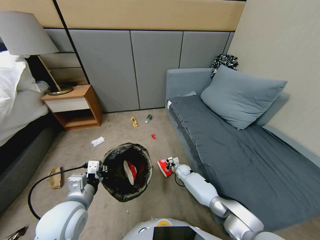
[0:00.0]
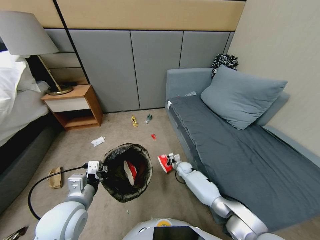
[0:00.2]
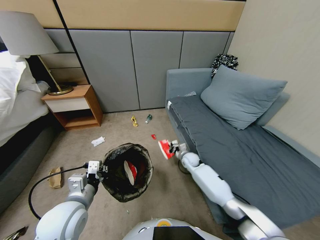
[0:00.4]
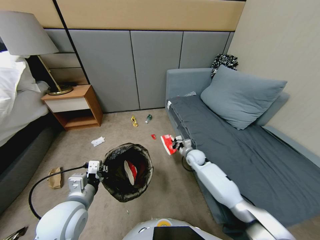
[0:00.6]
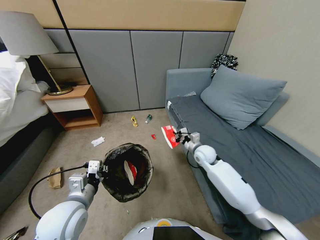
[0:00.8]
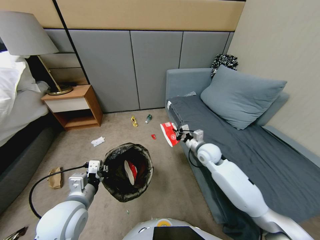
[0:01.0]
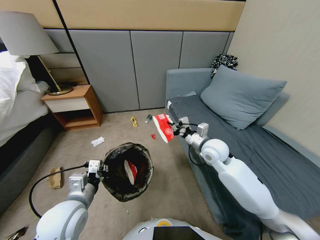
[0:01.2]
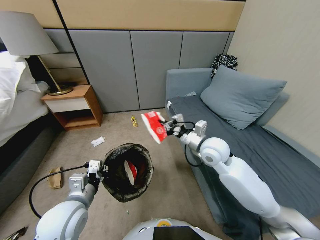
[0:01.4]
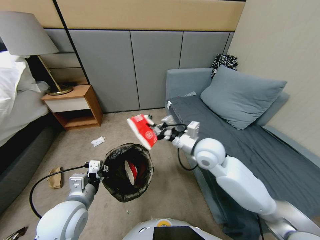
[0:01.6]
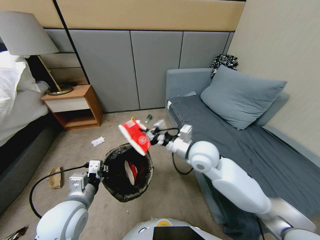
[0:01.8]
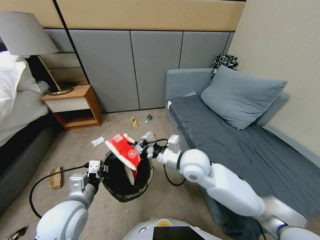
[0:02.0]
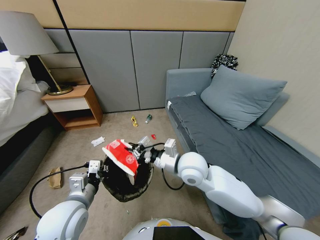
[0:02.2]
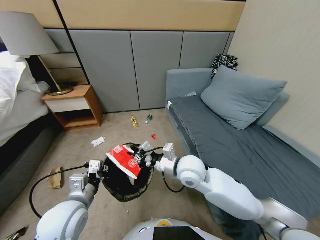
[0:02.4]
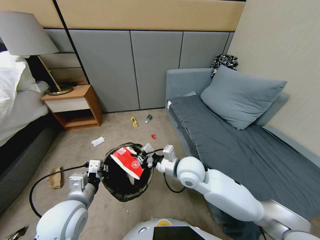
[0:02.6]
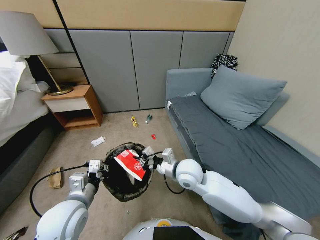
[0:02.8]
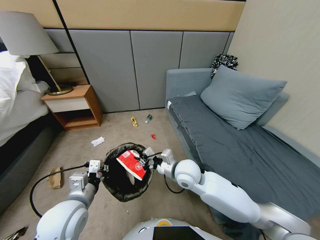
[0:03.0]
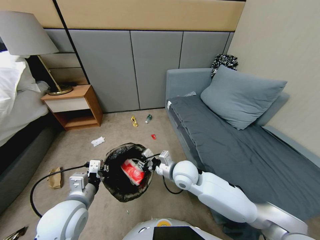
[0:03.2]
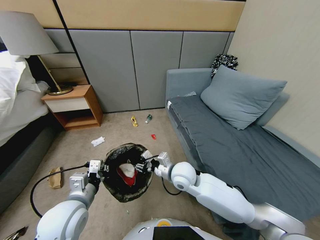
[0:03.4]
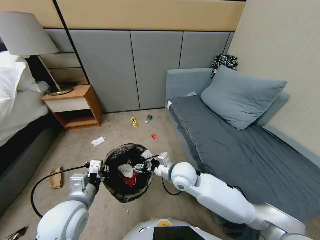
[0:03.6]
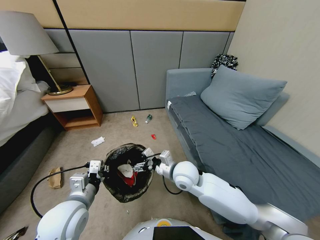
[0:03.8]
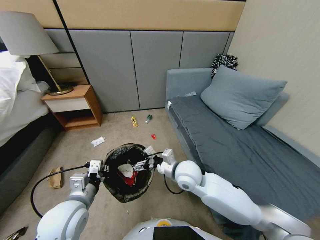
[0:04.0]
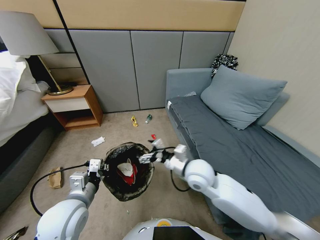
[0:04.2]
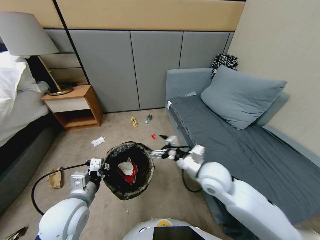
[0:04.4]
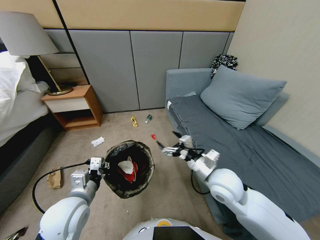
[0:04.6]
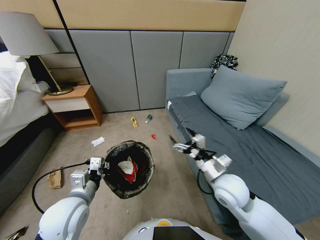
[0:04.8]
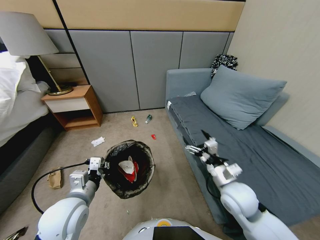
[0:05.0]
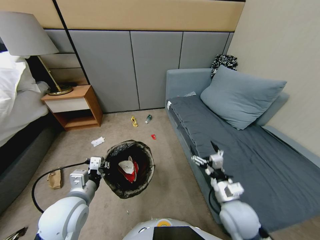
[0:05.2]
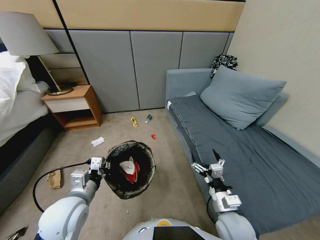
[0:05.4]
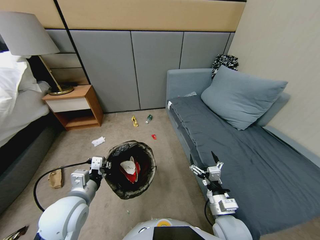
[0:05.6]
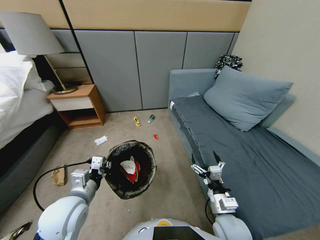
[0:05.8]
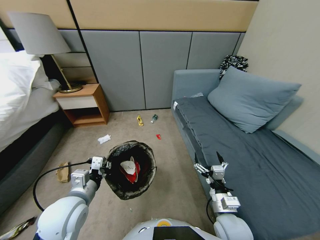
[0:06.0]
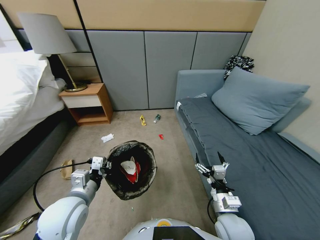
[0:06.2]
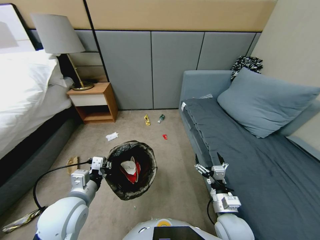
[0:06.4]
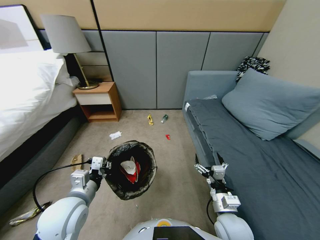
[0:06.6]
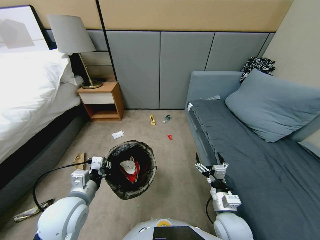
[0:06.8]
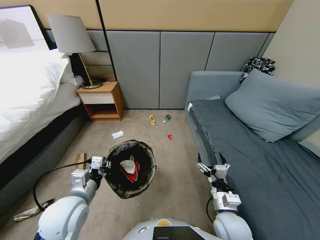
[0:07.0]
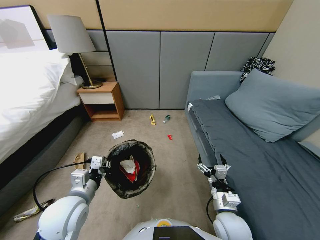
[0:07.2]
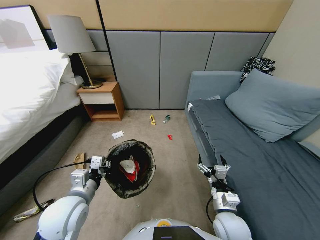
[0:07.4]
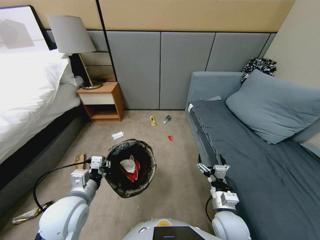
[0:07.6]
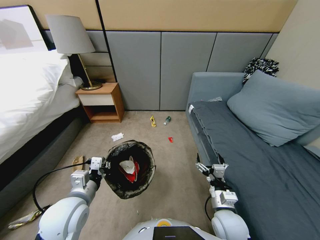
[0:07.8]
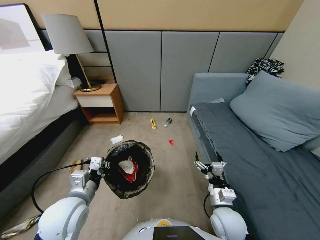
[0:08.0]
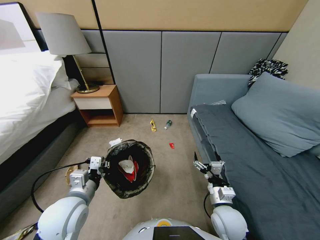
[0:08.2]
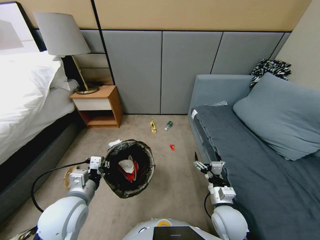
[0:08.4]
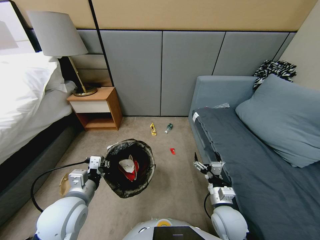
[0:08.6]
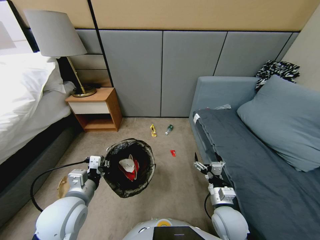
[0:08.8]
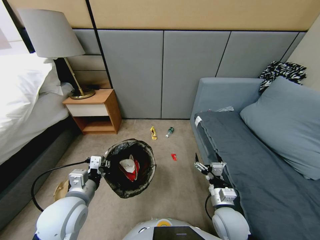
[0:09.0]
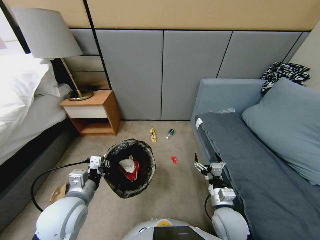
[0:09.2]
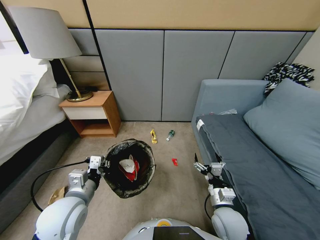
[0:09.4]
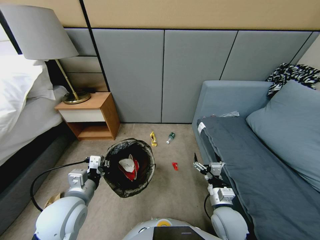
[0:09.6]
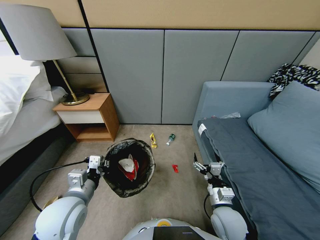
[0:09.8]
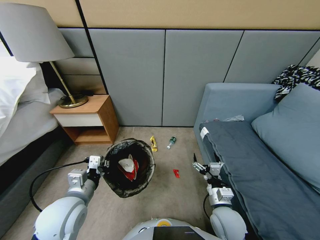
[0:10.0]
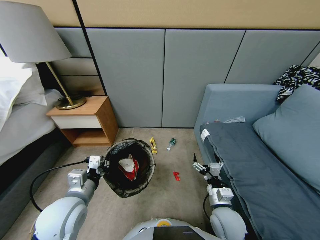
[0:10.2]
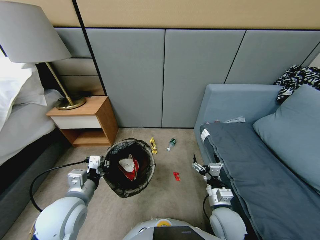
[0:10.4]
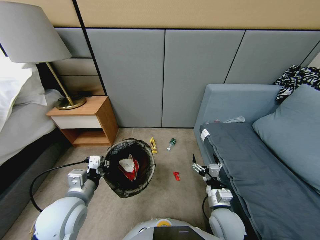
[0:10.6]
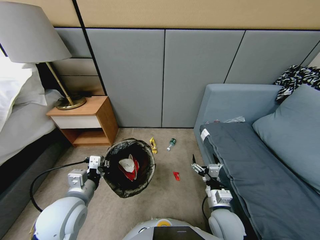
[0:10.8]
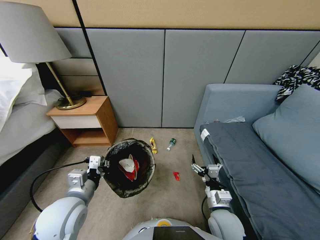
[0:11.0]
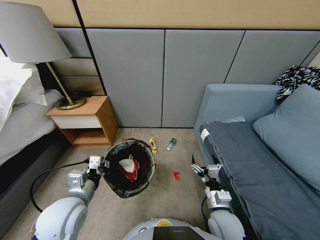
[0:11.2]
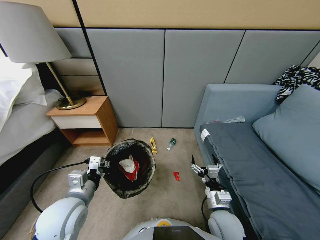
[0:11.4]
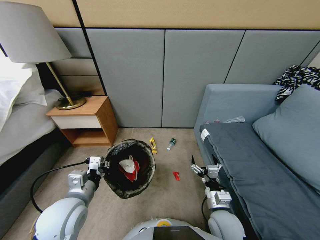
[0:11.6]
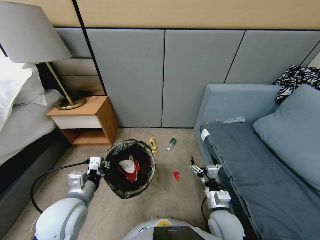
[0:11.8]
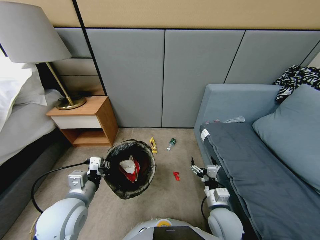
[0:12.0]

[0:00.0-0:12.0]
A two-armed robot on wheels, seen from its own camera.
Task of the whole recording: Pick up the trash bin, then pick up the garbage from the floor and place it into the trash bin.
0:00.0 to 0:01.6: The right gripper moves upward, approximately 35 cm.
0:01.6 to 0:03.0: The right gripper goes about 10 cm downward.
0:03.0 to 0:04.4: The right gripper goes some 10 cm to the right and backward, and opens.
0:04.4 to 0:06.0: The right gripper shifts approximately 15 cm downward and backward.
0:10.4 to 0:12.0: The grippers move only a little.

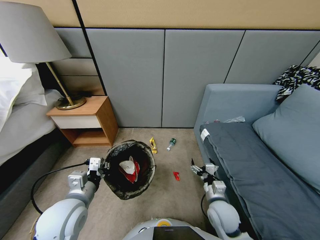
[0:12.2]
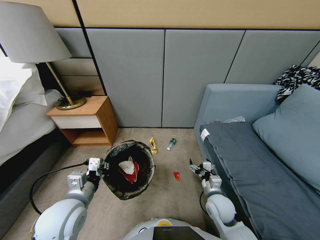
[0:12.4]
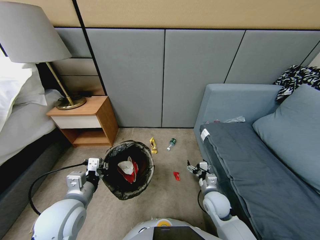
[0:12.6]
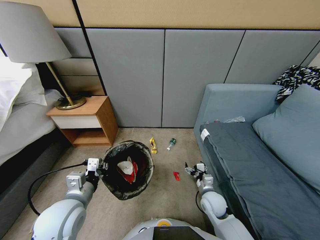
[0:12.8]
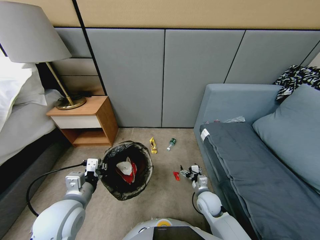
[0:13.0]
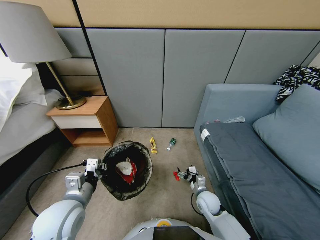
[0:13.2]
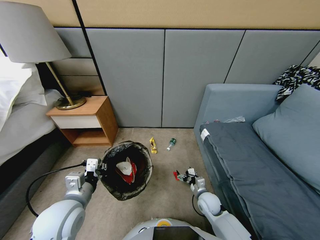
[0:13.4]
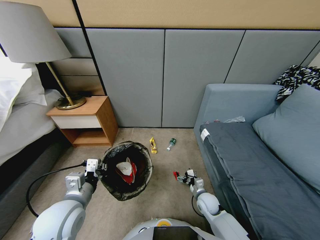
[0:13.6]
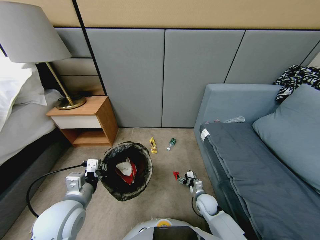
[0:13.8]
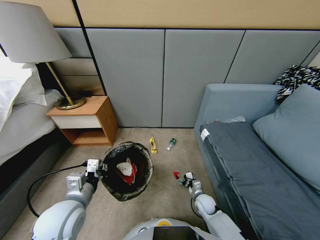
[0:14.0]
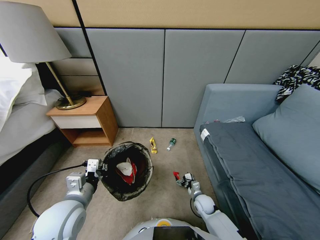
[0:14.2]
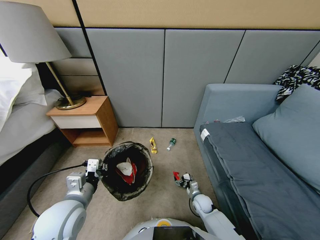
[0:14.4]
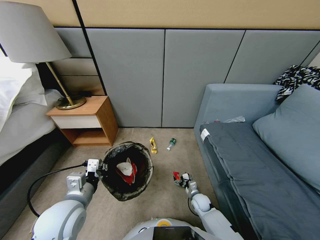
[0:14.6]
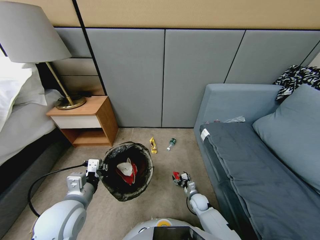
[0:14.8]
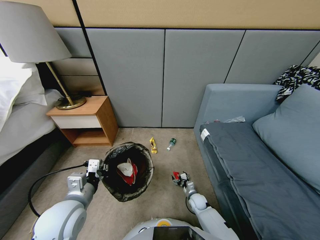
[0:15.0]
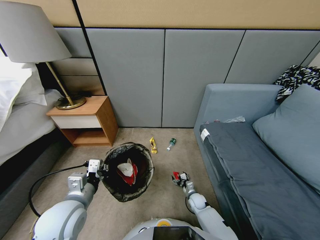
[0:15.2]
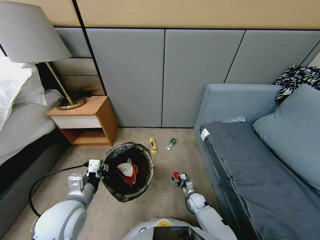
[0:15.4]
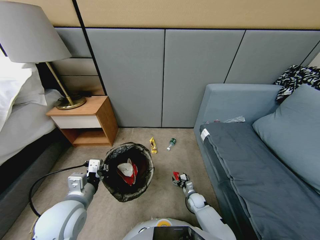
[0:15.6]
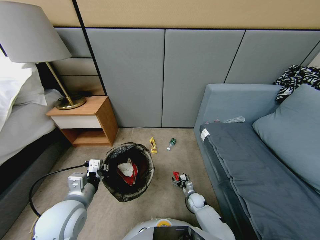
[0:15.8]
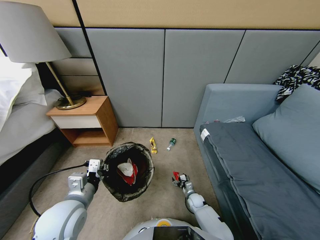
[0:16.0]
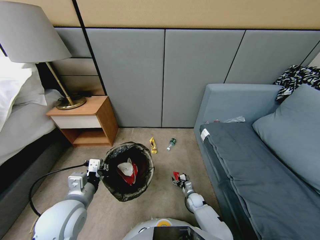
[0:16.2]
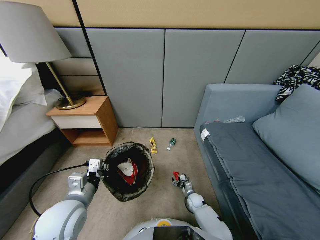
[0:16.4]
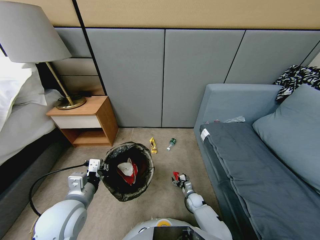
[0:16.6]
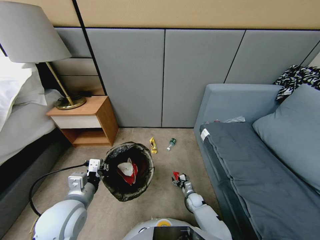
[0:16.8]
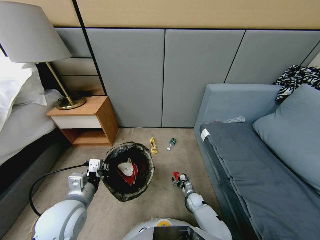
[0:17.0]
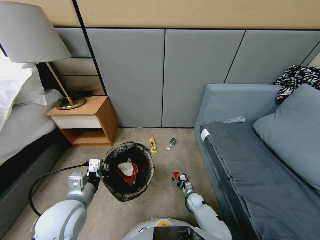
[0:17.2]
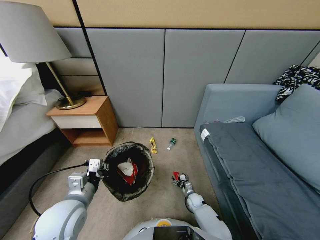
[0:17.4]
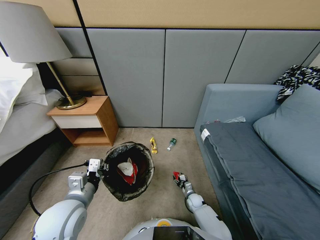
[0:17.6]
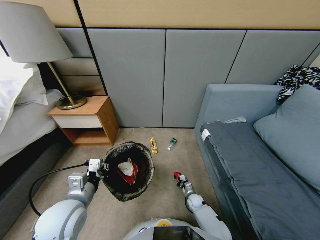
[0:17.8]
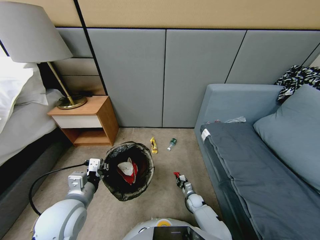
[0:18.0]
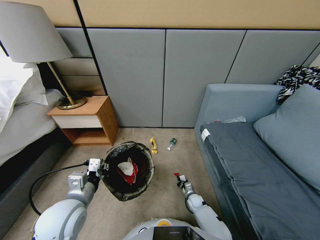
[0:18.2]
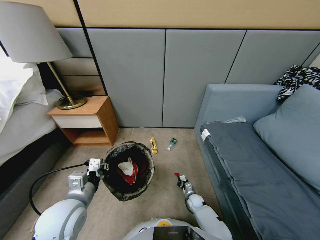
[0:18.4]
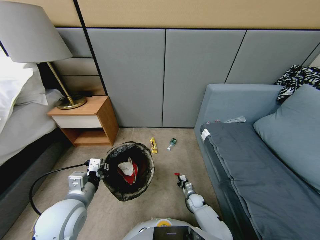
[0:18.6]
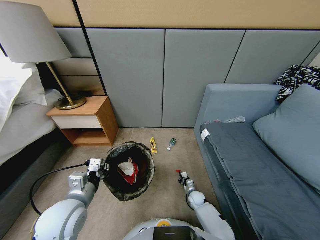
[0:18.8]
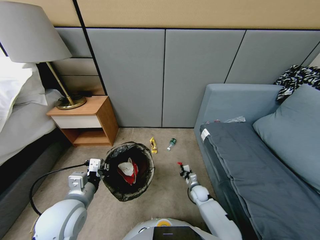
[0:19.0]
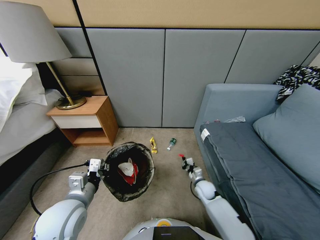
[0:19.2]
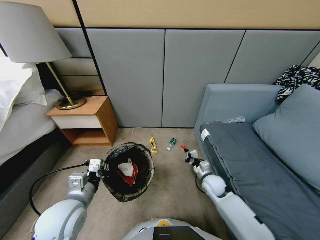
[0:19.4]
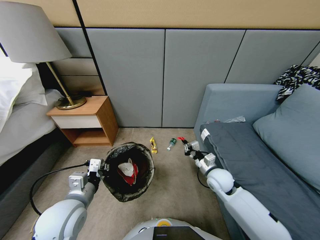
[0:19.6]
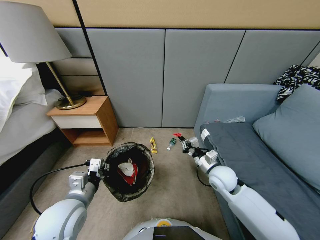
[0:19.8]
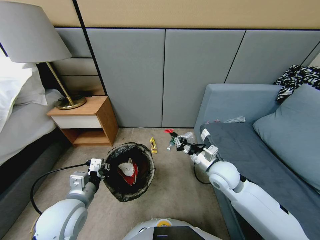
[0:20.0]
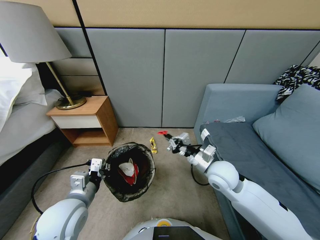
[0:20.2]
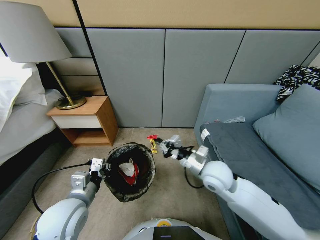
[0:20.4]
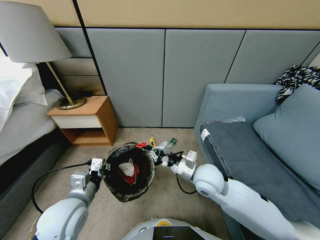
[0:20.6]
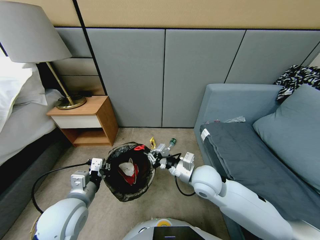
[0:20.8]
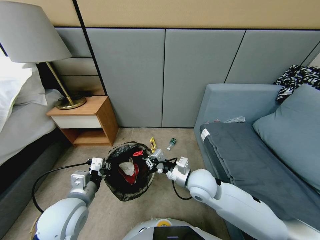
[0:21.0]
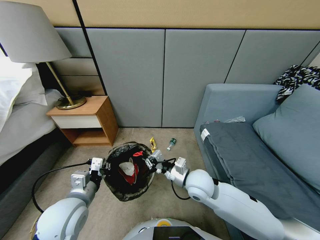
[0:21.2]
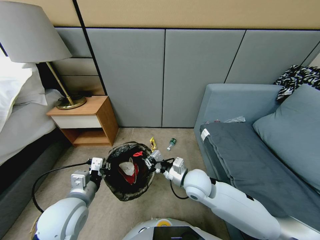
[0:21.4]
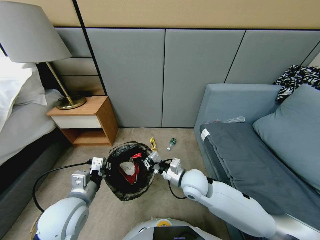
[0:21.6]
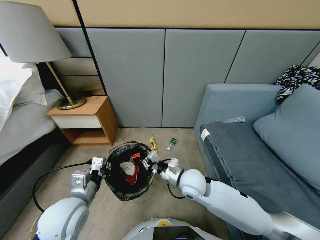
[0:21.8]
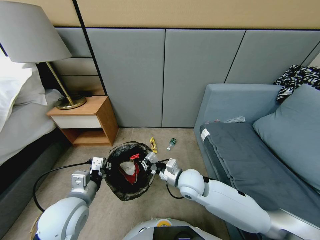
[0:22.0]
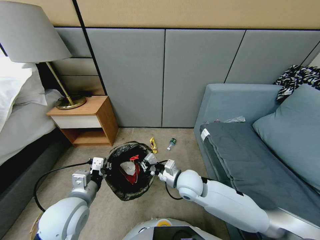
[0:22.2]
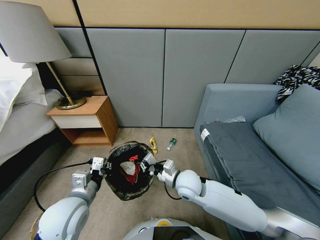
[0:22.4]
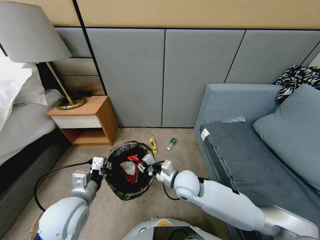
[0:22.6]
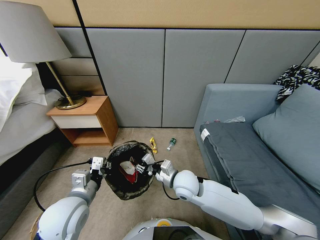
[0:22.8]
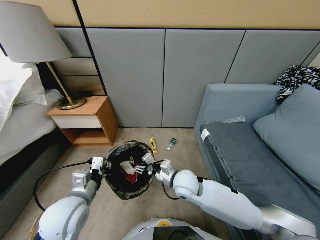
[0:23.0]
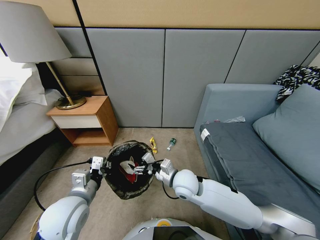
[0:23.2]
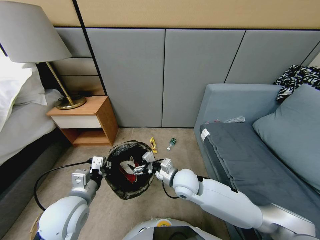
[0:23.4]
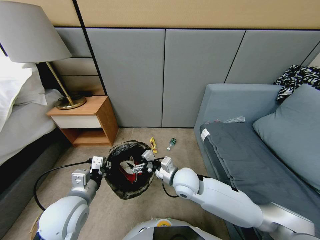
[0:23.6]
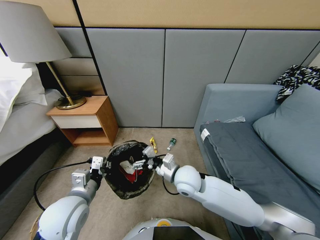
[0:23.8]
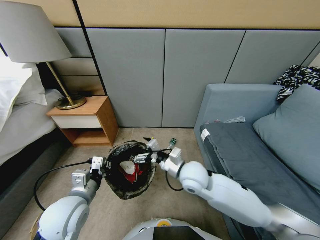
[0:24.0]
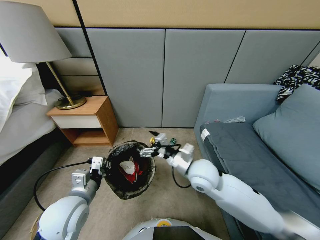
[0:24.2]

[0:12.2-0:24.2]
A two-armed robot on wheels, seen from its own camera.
Task of the whole recording: Pick up the trash bin, then pick up the garbage from the floor and place it into the trash bin.
0:12.2 to 0:13.8: The right gripper travels downward by approximately 15 cm.
0:13.8 to 0:15.2: The right gripper moves downward, roughly 10 cm.
0:16.6 to 0:18.2: The right gripper closes its fingers.
0:18.2 to 0:19.8: The right gripper goes some 40 cm upward.
0:19.8 to 0:21.2: The right gripper moves to the left, approximately 10 cm.
0:21.2 to 0:22.6: The grippers move only a little.
0:22.6 to 0:24.2: The right gripper is displaced upward and to the right by some 10 cm, and opens.
